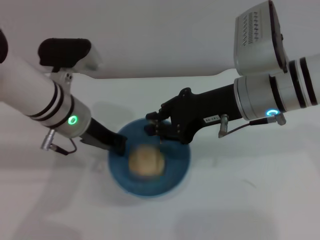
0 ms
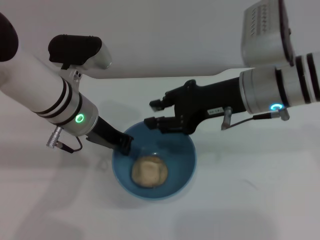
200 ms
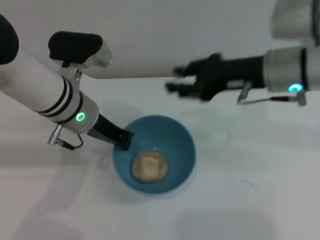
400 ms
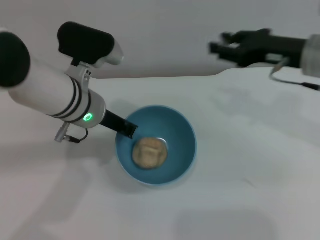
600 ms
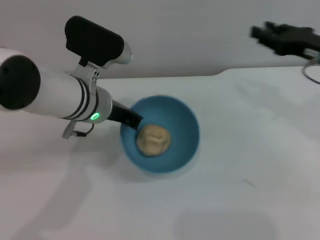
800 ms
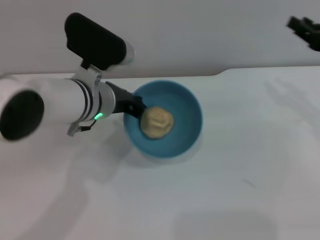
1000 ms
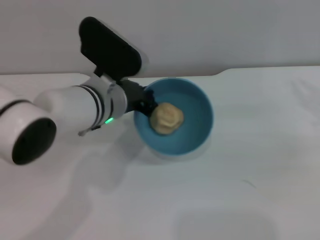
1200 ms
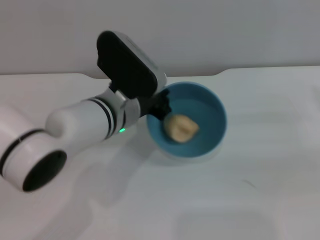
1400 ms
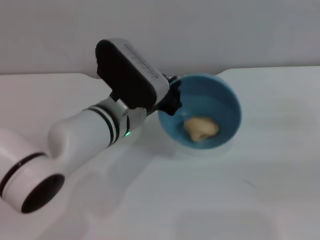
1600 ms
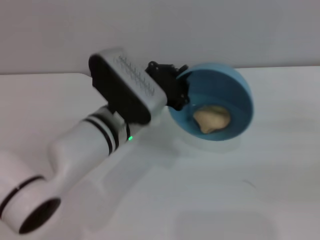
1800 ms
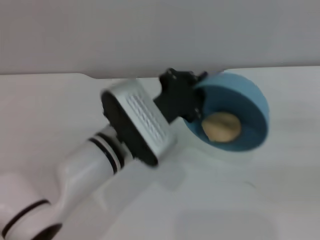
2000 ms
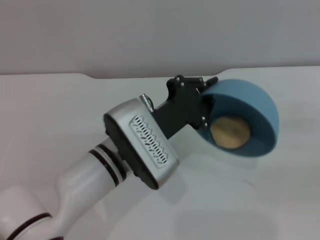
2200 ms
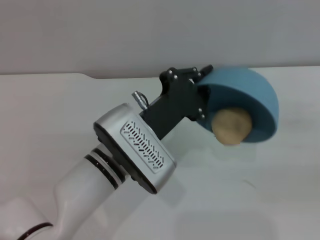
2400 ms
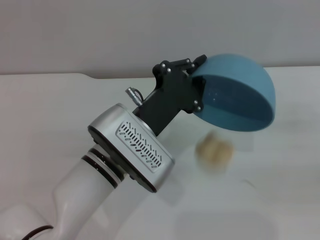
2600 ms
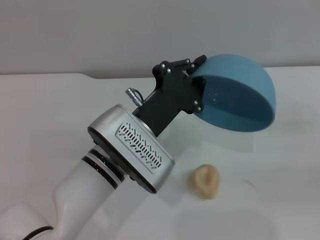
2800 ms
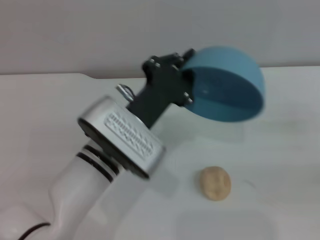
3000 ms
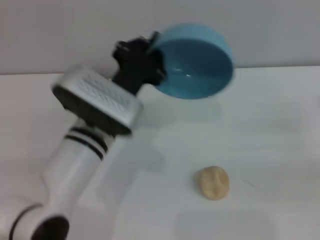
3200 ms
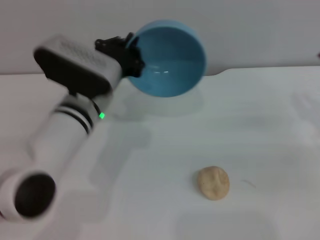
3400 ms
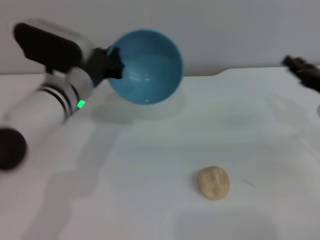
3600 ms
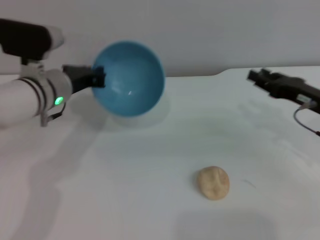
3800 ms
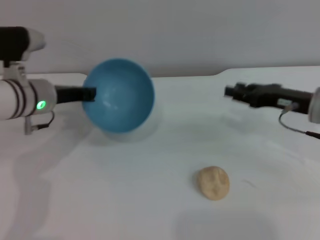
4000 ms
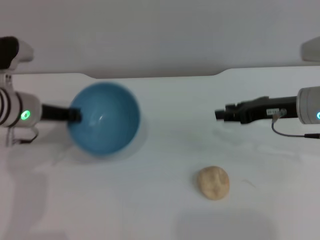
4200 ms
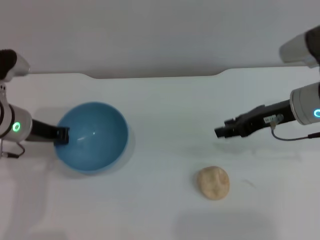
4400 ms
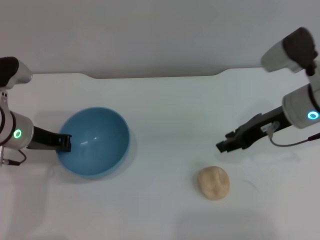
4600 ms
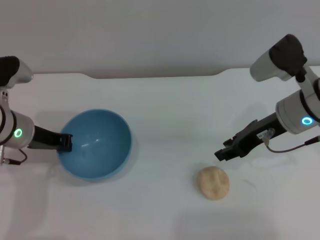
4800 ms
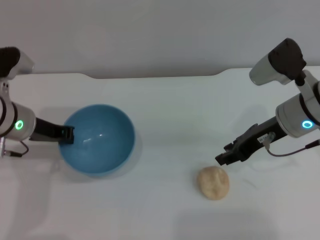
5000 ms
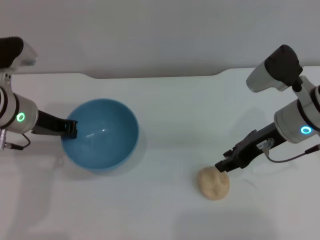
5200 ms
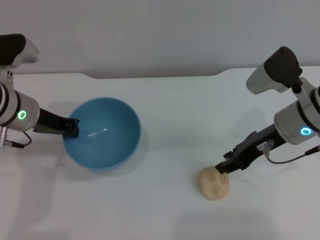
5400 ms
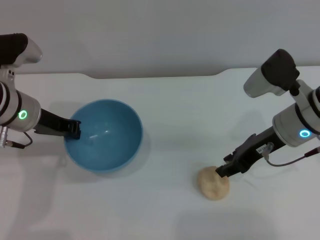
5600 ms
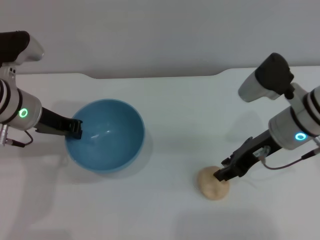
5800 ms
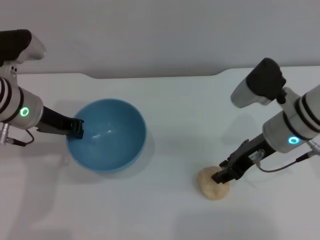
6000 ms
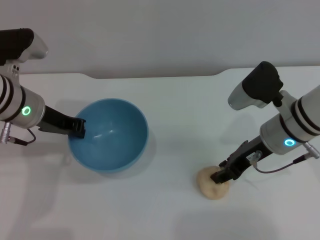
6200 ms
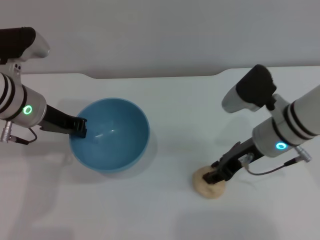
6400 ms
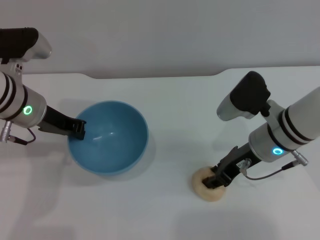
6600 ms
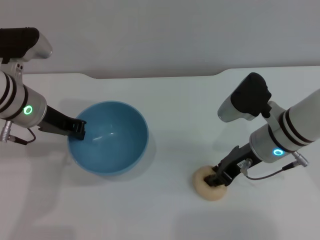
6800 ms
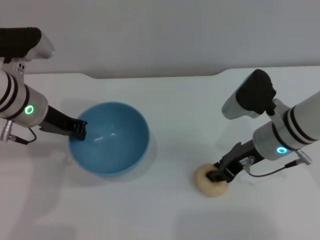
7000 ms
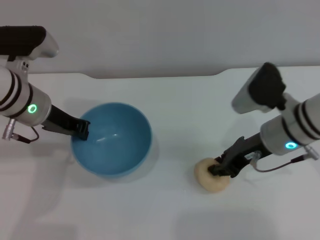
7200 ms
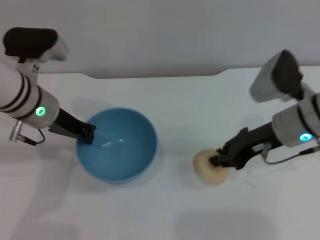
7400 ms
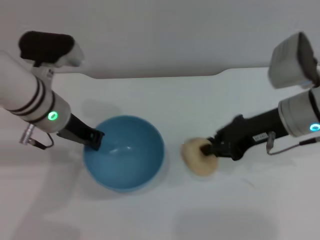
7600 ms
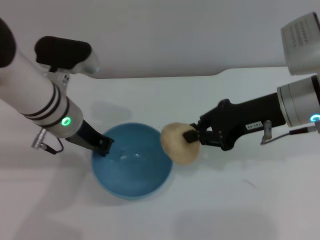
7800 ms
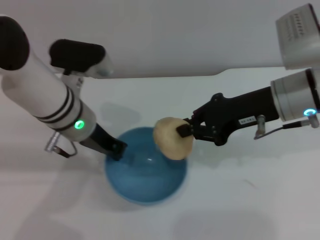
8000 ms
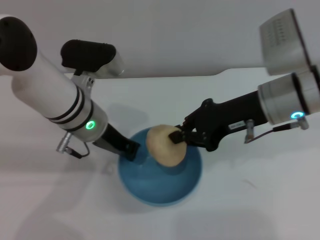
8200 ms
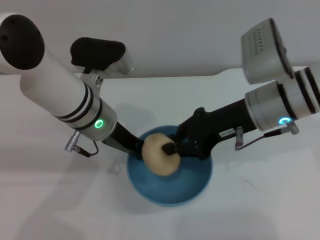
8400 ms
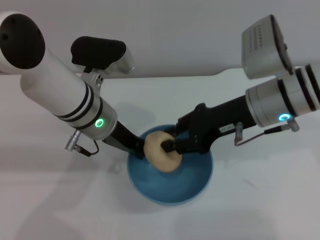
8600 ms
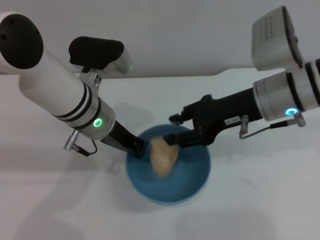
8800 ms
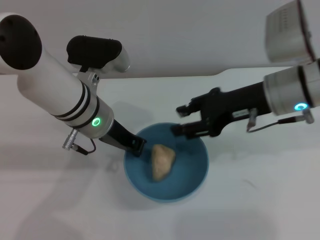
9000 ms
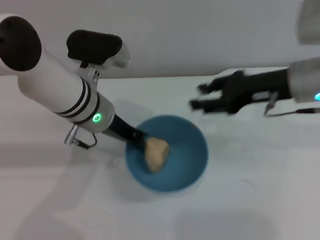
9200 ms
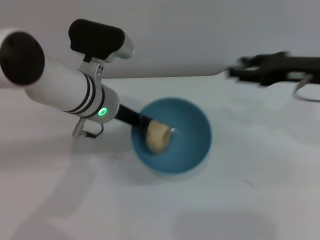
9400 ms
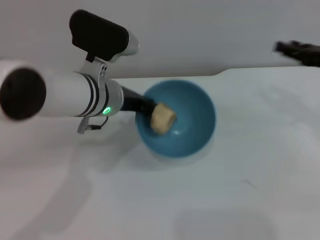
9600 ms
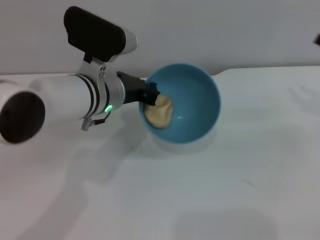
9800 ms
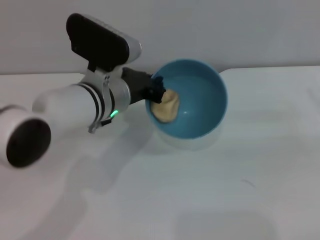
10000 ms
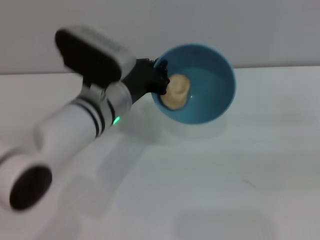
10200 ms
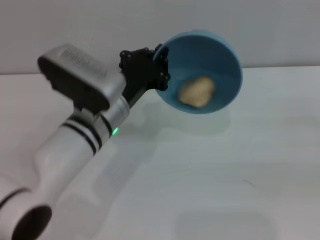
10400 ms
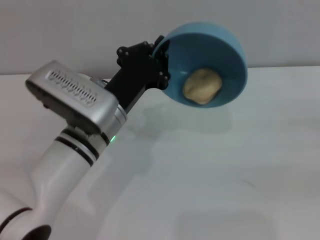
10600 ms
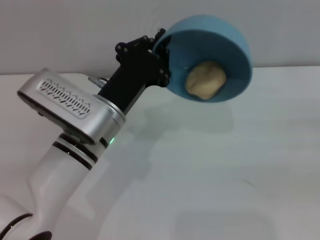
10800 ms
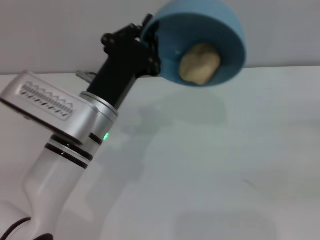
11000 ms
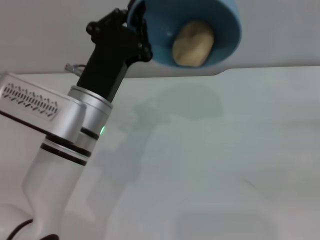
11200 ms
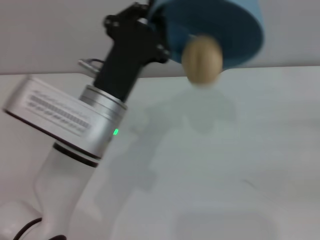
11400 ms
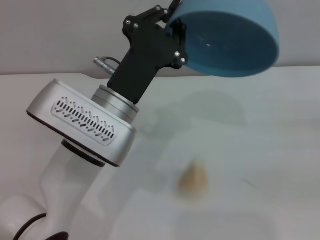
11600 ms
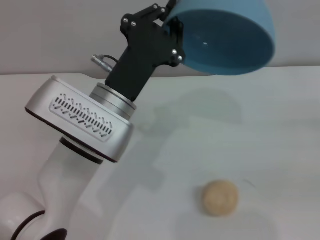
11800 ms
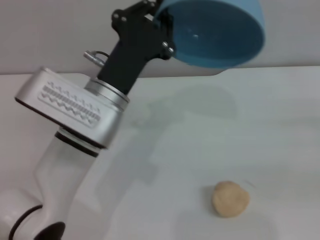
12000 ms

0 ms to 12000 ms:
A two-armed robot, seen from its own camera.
Task of the whole recording: put the egg yolk pastry into the blue bowl and pour it out repeatedly.
Step, 400 ms to 2800 ms: Pour the egg yolk pastry out of bowl.
Step, 3200 ms to 7600 ms: Pick up the egg yolk pastry with the right gripper.
Step, 7800 ms to 9200 ms: Place the egg yolk pastry into the bowl.
0 ms to 1600 ms: The left gripper shifts some 10 cm to the right; the right gripper heads to the right and downward, covering approximately 25 cm, and opens.
3000 ms to 4400 ms: The left gripper moves to the left and forward, some 20 cm. Meanwhile the right gripper travels to the left, forward and upward by some 20 cm.
4400 ms to 6000 ms: The right gripper ends up roughly 5 cm from where it was.
6000 ms to 7600 ms: The right gripper closes its fingers.
7600 ms to 9000 ms: The right gripper opens up, while the left gripper travels to the right by roughly 5 cm.
9000 ms to 10400 ms: The left gripper ends up some 5 cm from where it was, while the right gripper goes roughly 25 cm to the right.

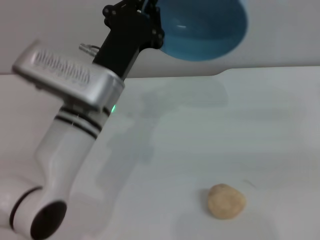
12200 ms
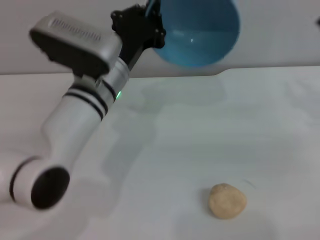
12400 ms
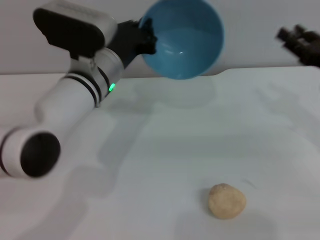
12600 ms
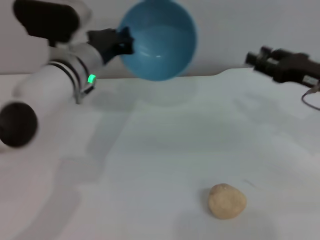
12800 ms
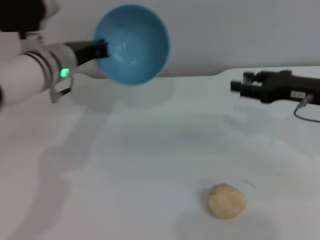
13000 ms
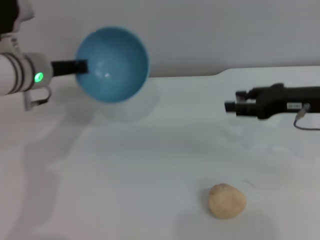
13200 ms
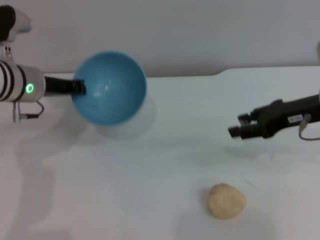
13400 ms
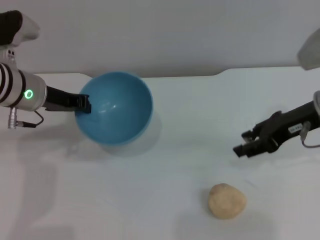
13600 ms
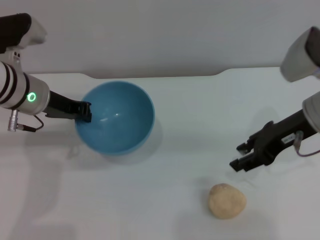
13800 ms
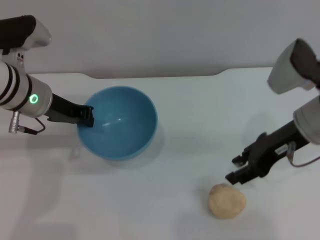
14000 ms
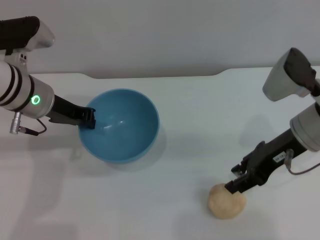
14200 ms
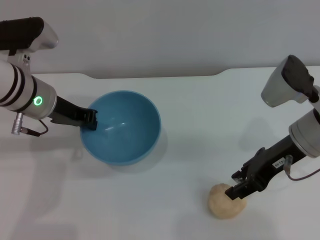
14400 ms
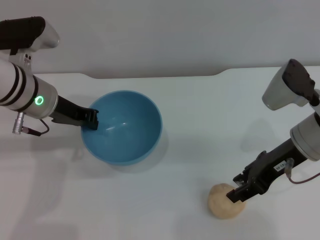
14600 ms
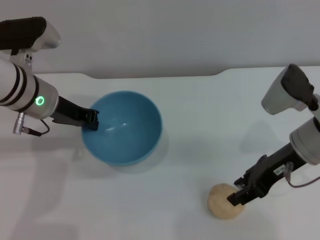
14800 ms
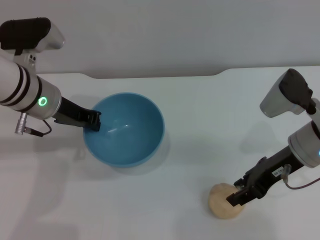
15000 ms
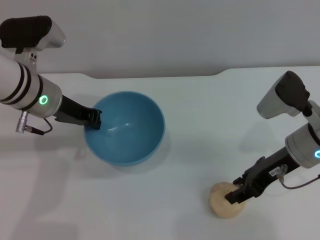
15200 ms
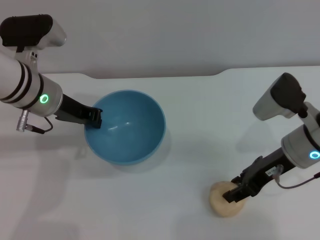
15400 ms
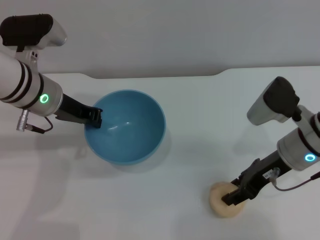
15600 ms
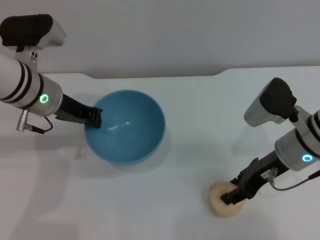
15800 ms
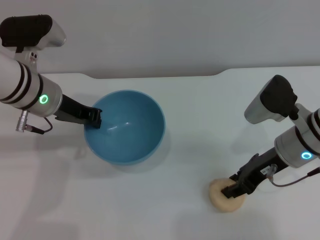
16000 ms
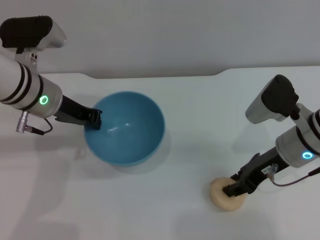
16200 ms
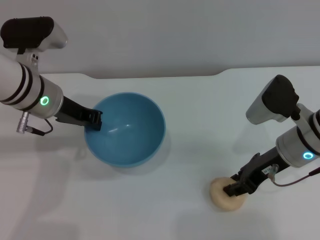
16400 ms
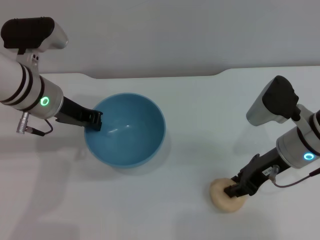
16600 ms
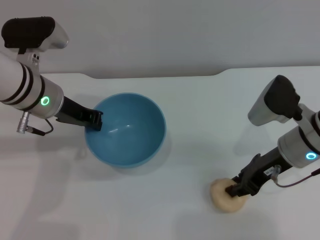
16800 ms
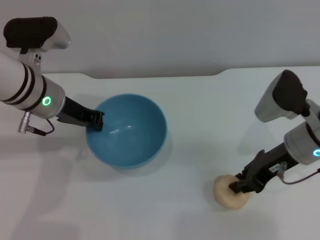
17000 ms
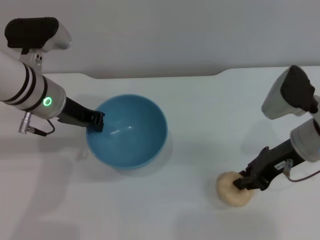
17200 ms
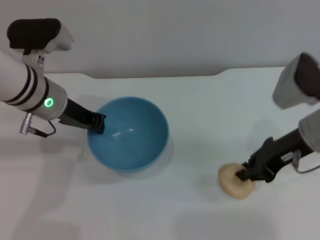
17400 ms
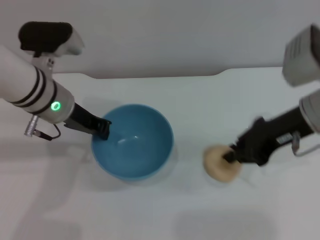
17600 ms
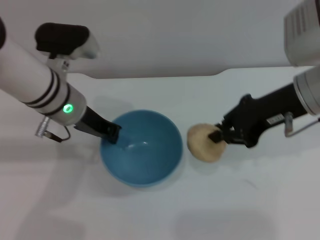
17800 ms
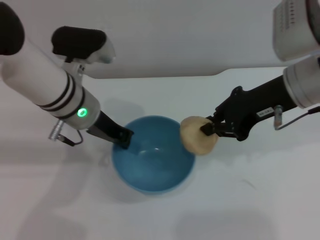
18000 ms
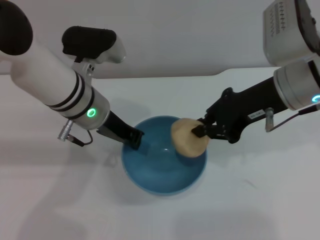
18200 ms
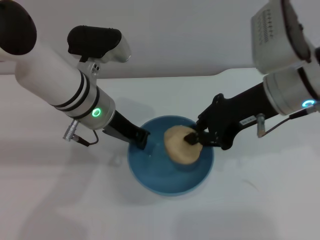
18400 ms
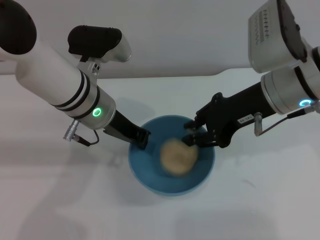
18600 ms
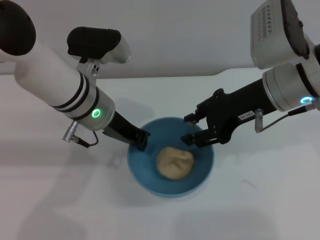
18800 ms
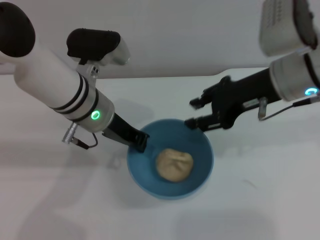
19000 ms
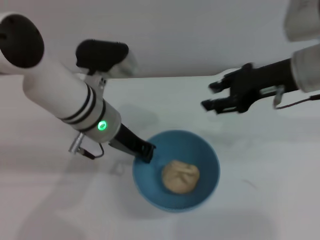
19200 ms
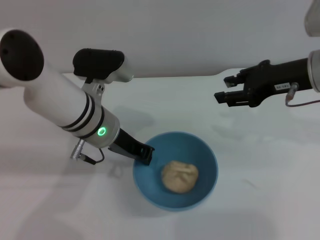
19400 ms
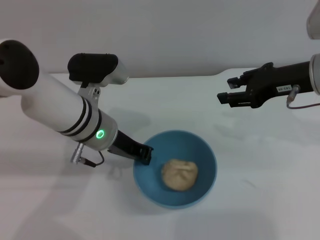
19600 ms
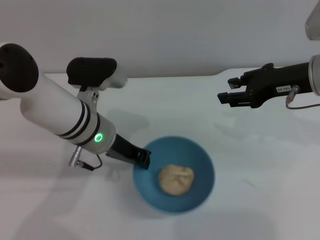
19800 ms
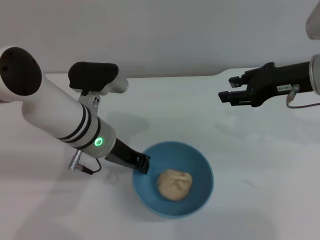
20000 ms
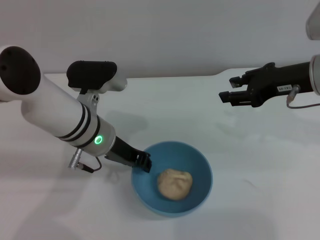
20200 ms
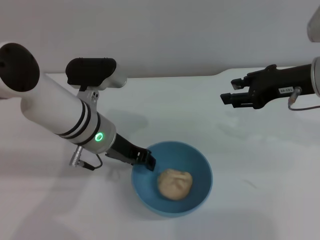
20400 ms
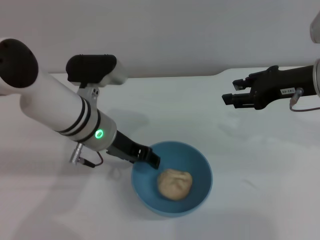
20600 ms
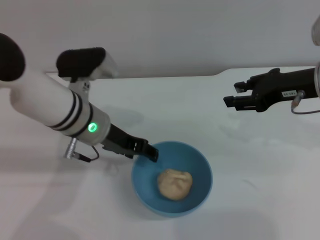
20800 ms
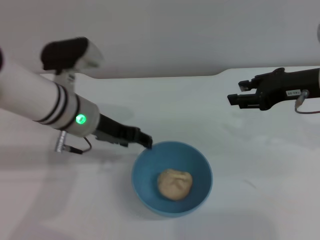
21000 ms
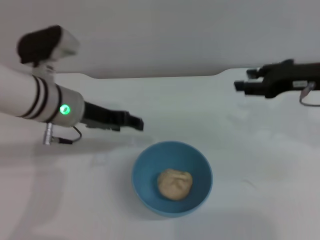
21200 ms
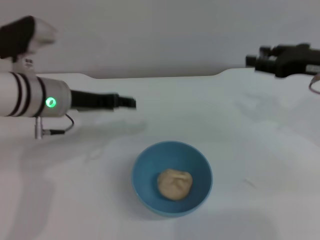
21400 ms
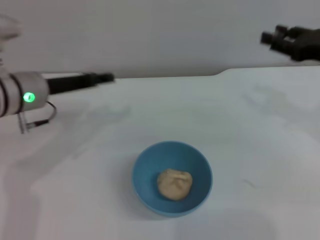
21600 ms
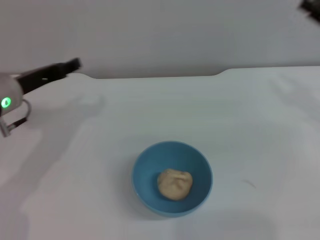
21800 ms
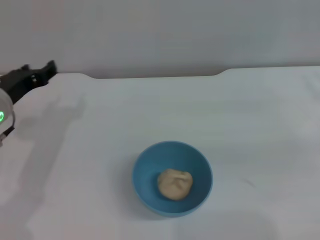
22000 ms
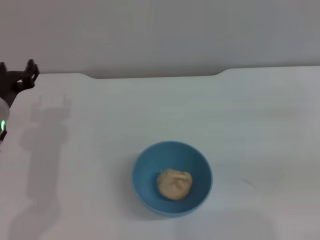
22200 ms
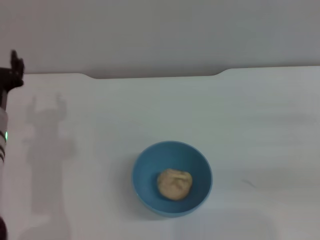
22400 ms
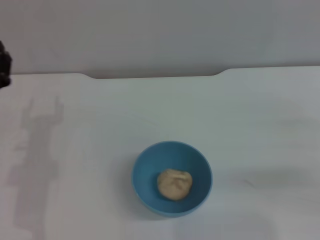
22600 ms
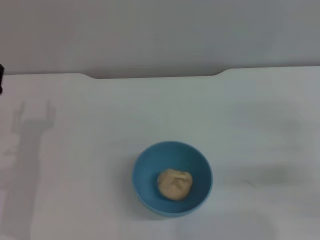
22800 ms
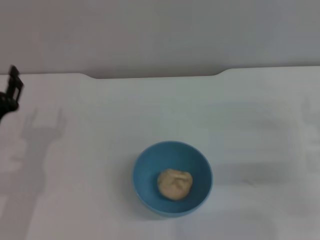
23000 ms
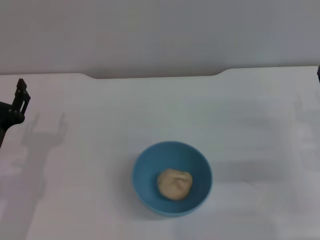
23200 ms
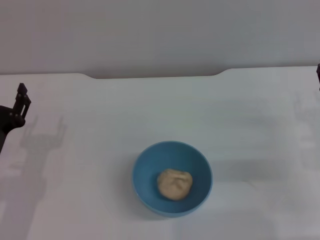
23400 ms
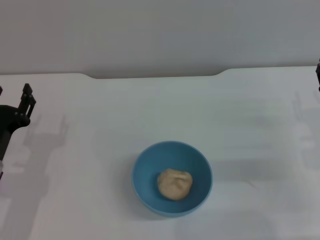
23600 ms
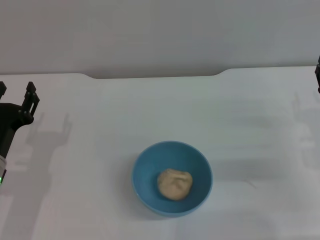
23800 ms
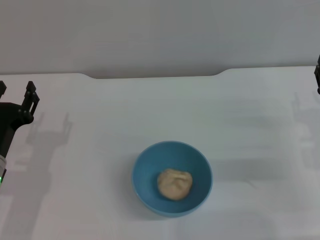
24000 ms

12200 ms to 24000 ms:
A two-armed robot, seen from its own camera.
Task of the whole recording: put the egg yolk pastry into the blue bowl and pour it out repeatedly.
Step, 12400 ms to 17400 ms: Pick up the egg yolk pastry with the right gripper.
Step, 17600 ms to 19000 ms: Place the egg yolk pastry into the bowl.
Step, 19200 ms to 20800 ms: Place the bowl on the table.
12200 ms to 13600 ms: The right gripper moves to the left and upward, some 15 cm. The left gripper is displaced to the left and forward by some 15 cm.
13600 ms to 15200 ms: The right gripper is displaced downward by about 5 cm.
15200 ms to 16600 ms: The grippers move only a little.
16600 ms to 18200 ms: The right gripper travels upward by about 10 cm, and closes its fingers. Meanwhile the left gripper is displaced to the right by approximately 5 cm.
18200 ms to 19600 ms: The right gripper heads to the right, covering about 5 cm, and opens up.
19600 ms to 21000 ms: The left gripper opens.
21000 ms to 22600 ms: The left gripper goes some 15 cm to the left, backward and downward. Meanwhile the right gripper goes approximately 15 cm to the right, downward and backward.
